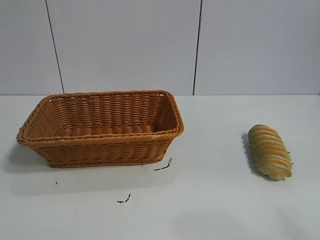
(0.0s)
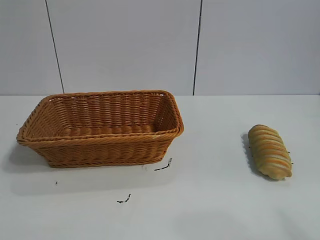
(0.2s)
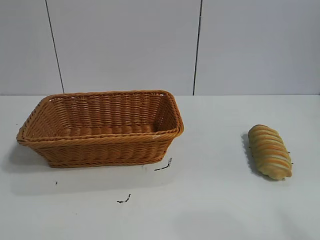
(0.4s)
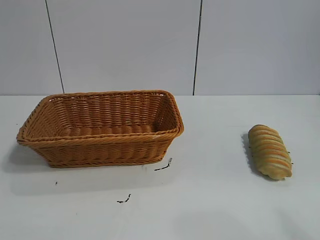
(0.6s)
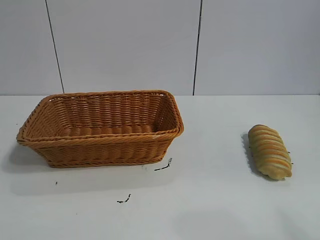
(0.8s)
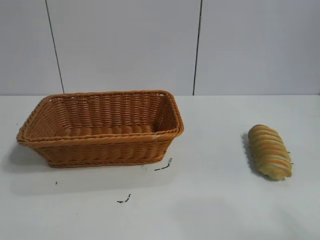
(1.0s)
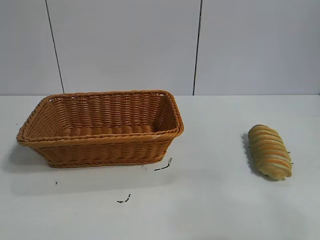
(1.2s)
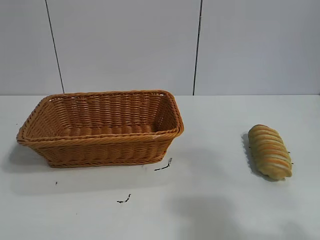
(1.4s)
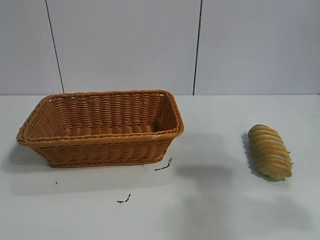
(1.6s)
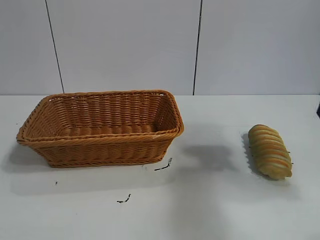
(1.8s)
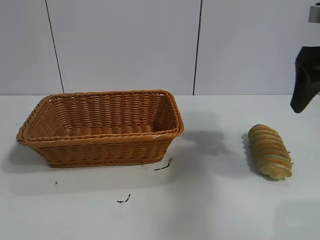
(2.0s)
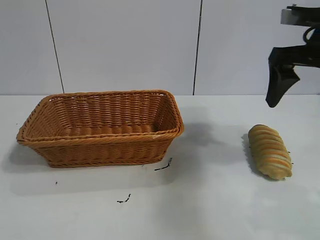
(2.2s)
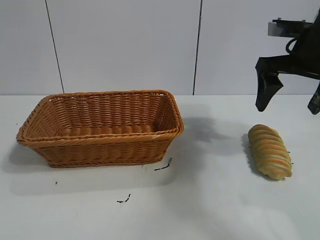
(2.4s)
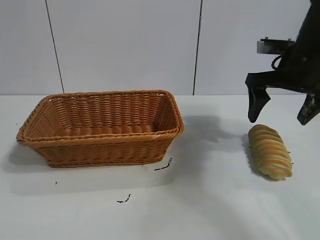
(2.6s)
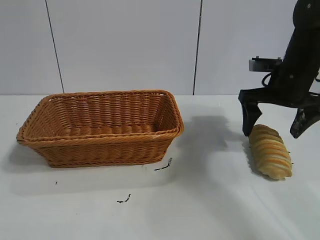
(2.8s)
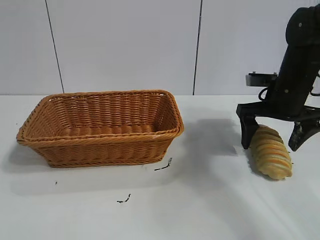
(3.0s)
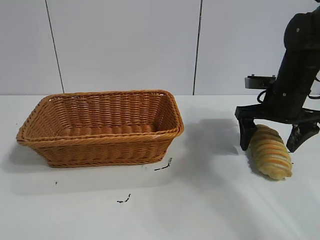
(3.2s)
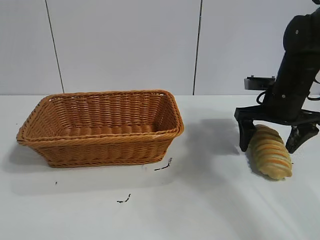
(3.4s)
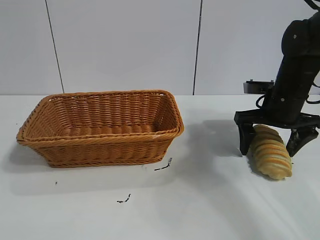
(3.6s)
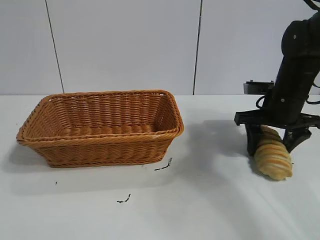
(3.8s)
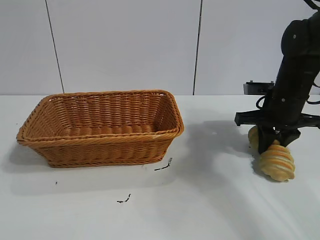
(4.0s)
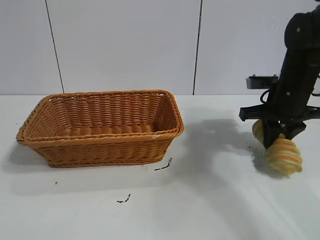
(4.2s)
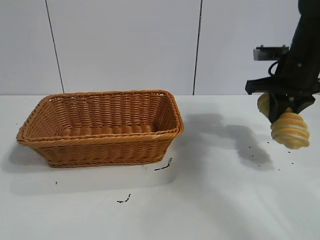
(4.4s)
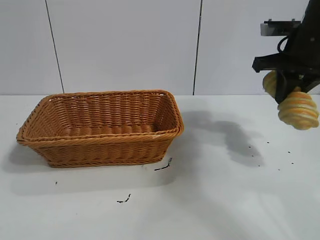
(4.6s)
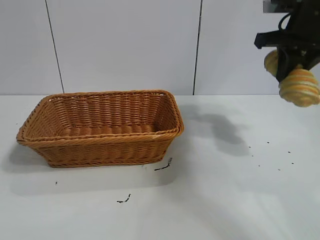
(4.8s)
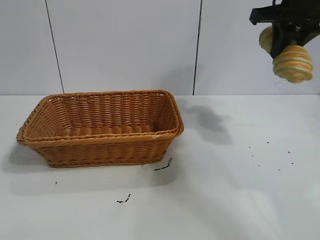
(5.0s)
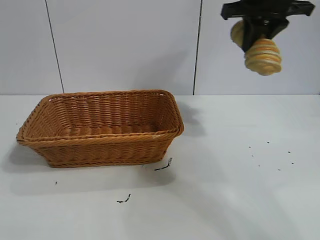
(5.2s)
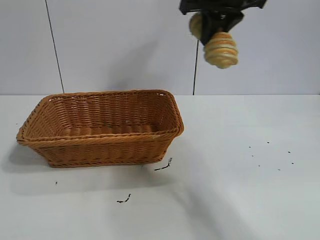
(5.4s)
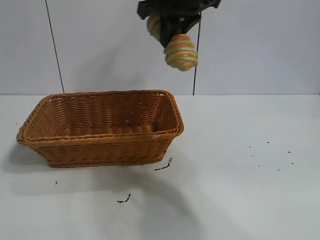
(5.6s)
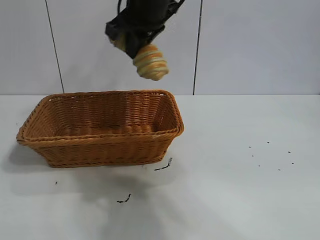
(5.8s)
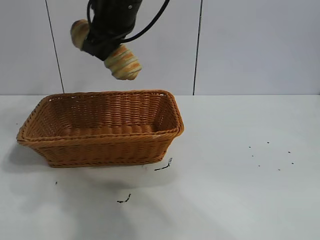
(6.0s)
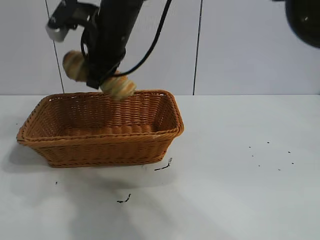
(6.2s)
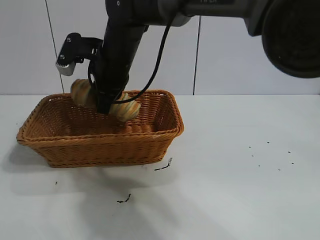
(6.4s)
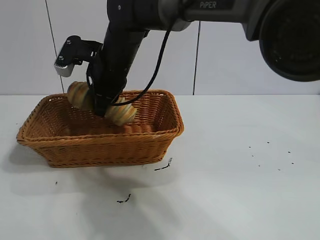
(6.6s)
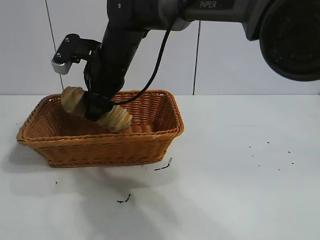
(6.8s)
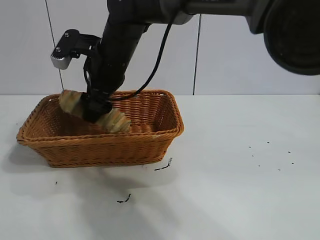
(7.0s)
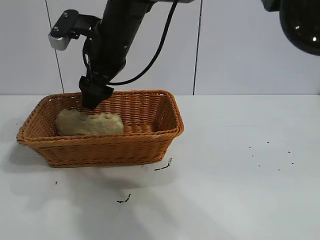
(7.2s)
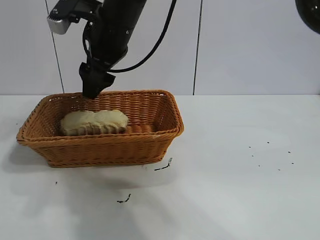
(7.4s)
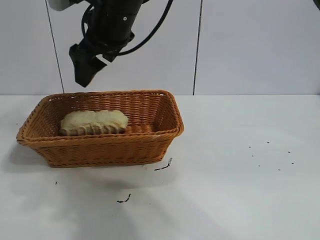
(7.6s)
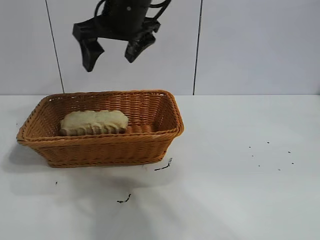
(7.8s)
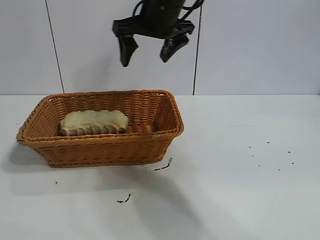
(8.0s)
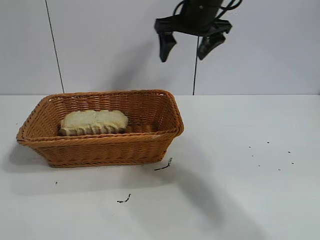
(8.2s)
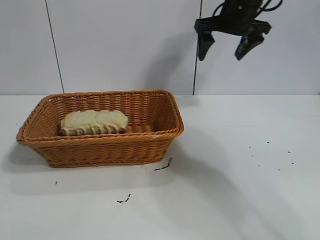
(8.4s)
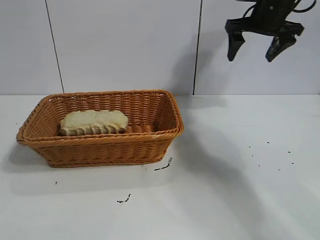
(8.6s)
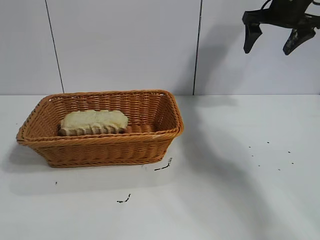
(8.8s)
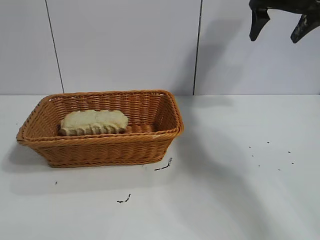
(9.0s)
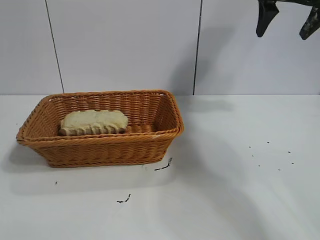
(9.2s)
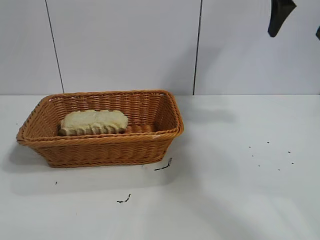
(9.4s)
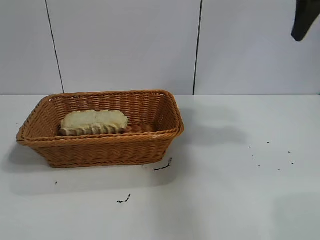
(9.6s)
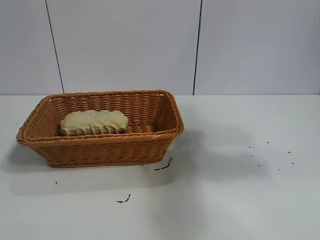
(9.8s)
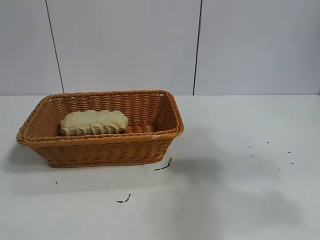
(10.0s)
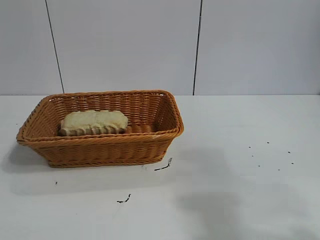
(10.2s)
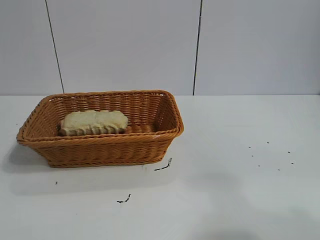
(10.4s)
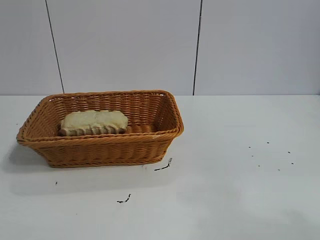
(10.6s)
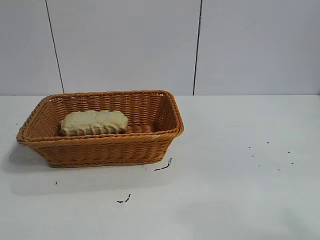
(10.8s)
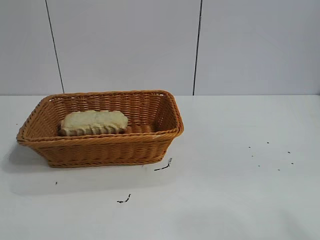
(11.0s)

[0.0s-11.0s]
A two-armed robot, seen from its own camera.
Task of the whole recording: pick up the long bread and put it into the basket.
Step, 1.8s to 4.0s: Grasp the long bread with right gripper.
Step, 4.2s to 7.4s: Place the long bread in the basket with right gripper.
